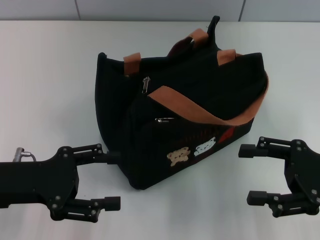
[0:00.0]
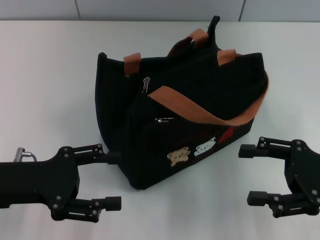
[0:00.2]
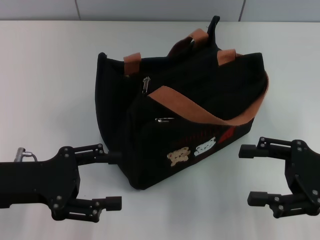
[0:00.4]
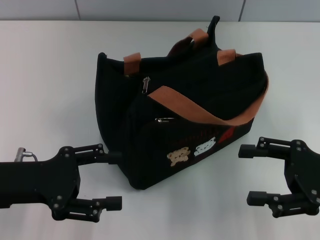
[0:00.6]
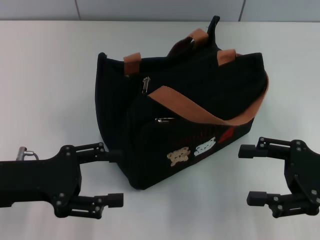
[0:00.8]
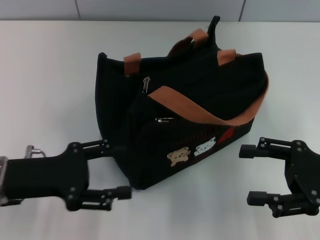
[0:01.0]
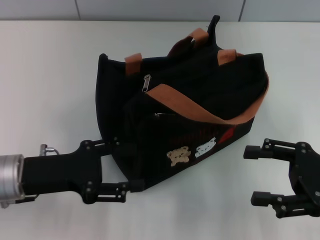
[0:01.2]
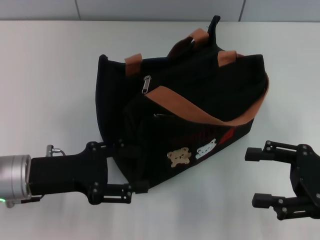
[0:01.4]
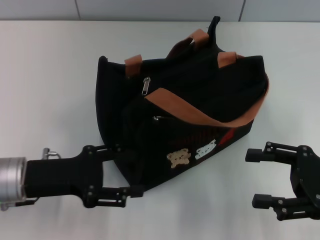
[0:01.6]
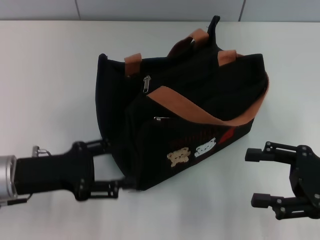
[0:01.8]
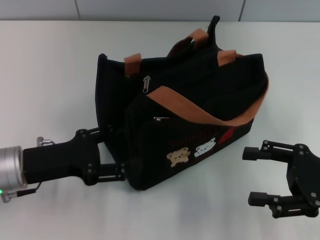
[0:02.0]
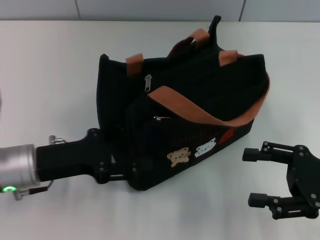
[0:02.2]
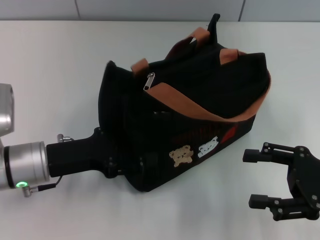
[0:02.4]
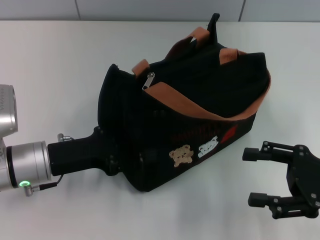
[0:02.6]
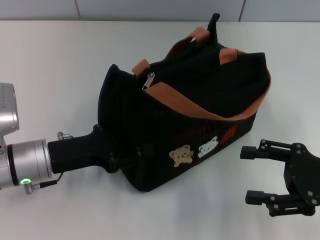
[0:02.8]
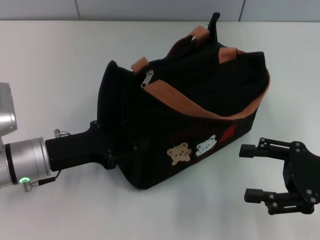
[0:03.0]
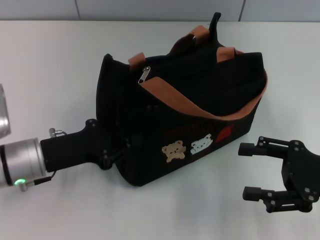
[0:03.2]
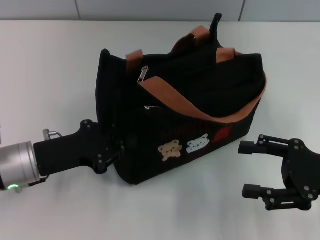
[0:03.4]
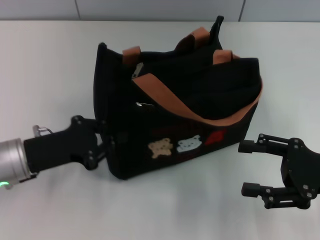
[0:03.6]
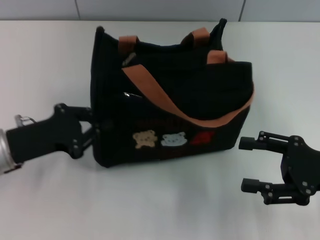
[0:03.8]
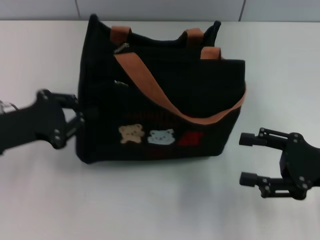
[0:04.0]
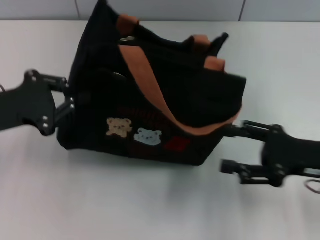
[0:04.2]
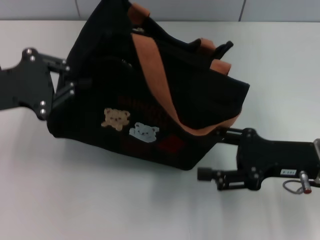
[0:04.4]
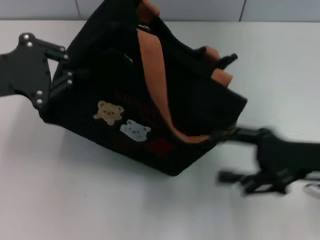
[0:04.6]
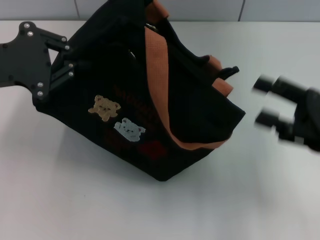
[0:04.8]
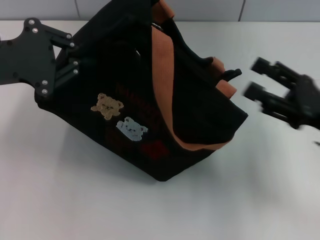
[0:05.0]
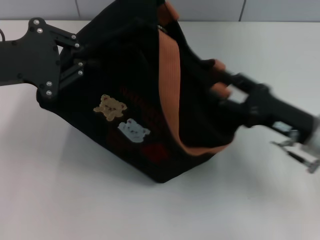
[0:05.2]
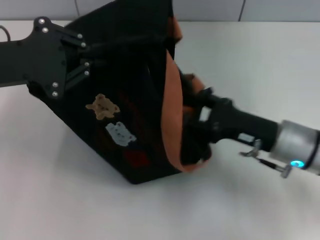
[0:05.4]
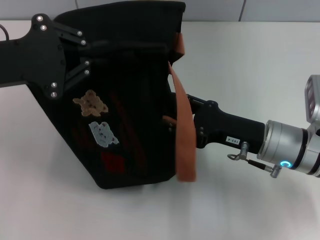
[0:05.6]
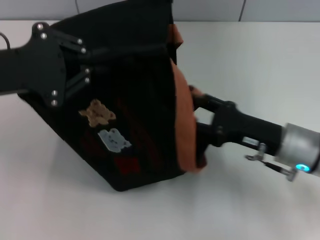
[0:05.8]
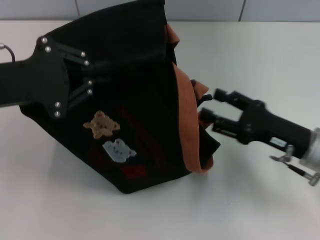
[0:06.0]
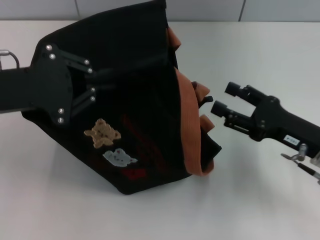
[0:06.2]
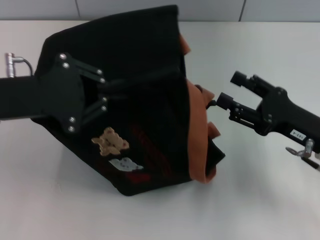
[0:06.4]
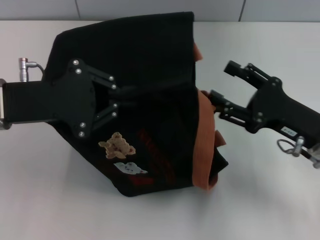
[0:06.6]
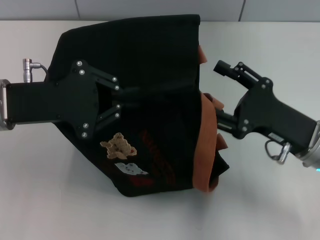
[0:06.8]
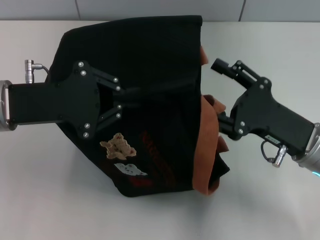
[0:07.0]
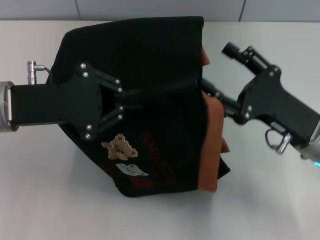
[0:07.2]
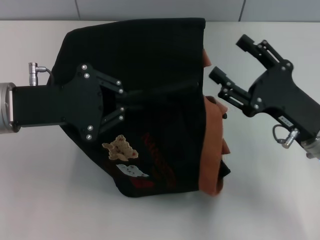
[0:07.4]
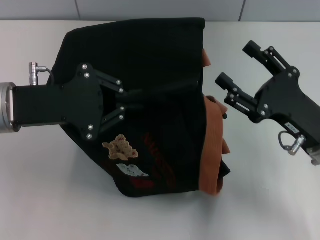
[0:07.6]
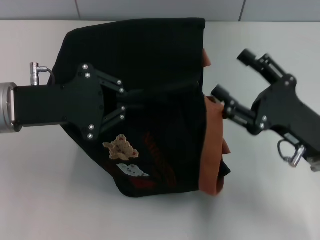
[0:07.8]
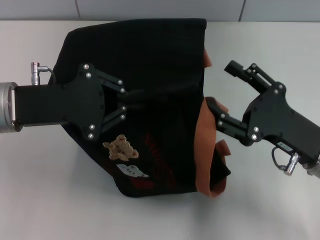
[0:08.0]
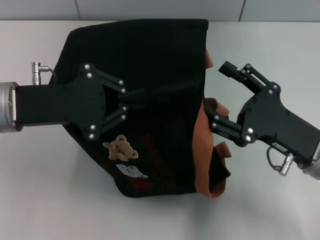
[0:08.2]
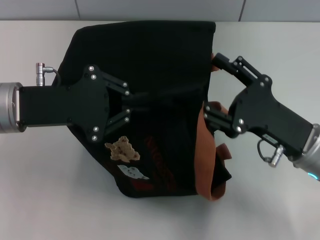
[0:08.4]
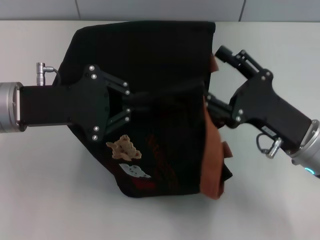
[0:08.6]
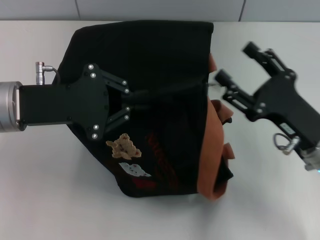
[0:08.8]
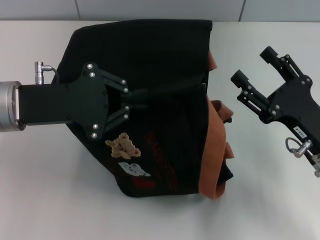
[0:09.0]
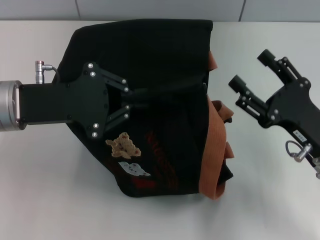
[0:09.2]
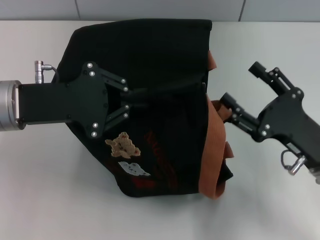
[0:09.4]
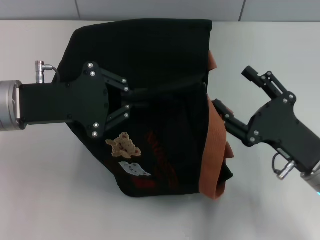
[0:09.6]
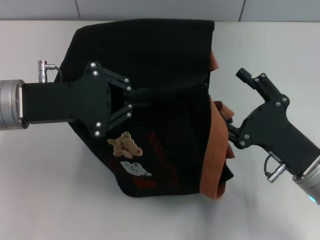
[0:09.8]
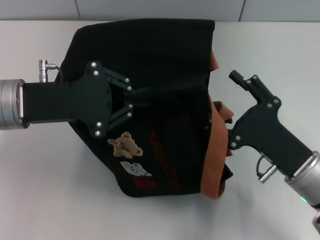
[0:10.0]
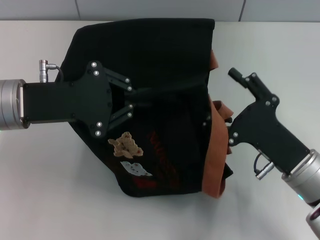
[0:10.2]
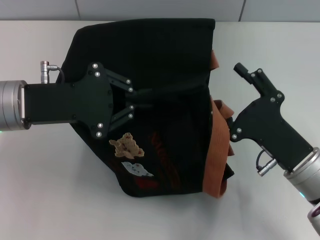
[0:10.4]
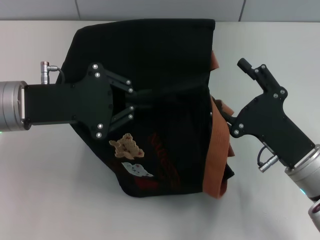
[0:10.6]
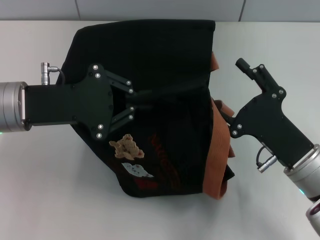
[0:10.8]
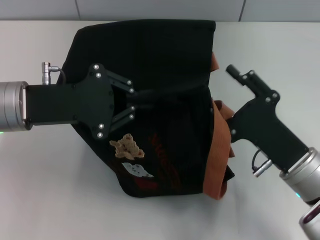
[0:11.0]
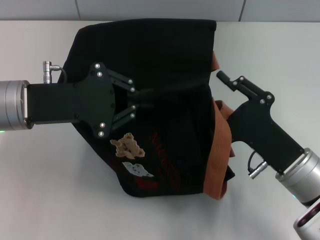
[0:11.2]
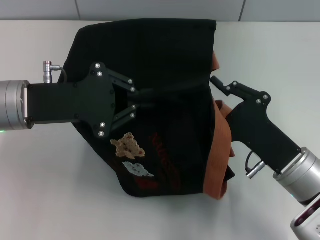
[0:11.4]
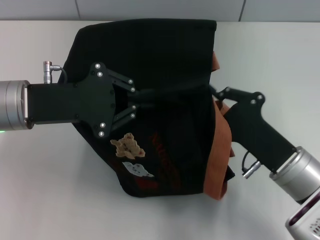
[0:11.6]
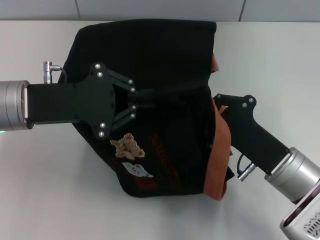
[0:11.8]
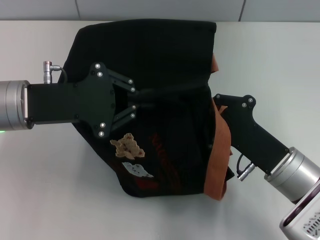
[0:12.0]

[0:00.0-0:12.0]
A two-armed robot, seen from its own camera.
0:00.0 to 0:01.6: The grippers move only a little.
0:01.6 to 0:03.0: The left gripper closes up.
0:03.0 to 0:04.4: The right gripper shifts some 5 cm to the left; the left gripper heads upward and to the left, covering approximately 15 cm, and closes up.
0:04.4 to 0:06.0: The right gripper goes left and right, some 10 cm each way, reversing 2 times.
0:07.6 to 0:09.0: The grippers move only a little.
0:10.4 to 0:12.0: The right gripper closes its fingers.

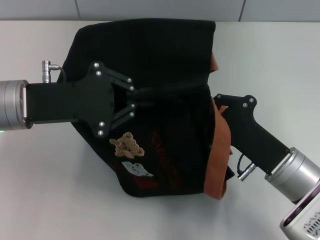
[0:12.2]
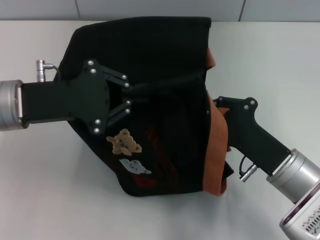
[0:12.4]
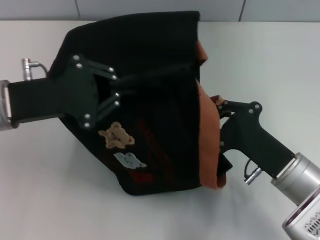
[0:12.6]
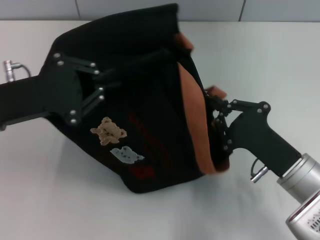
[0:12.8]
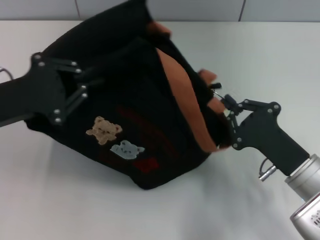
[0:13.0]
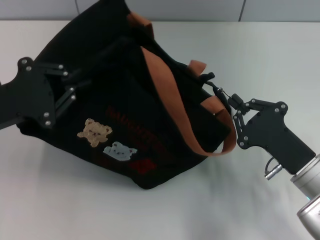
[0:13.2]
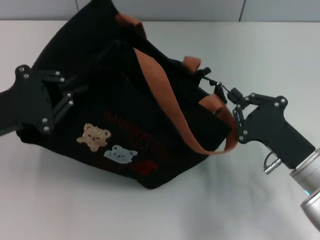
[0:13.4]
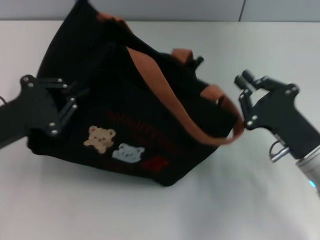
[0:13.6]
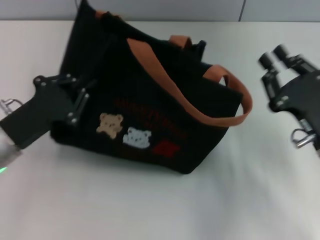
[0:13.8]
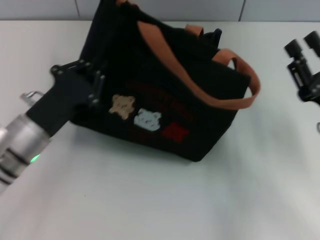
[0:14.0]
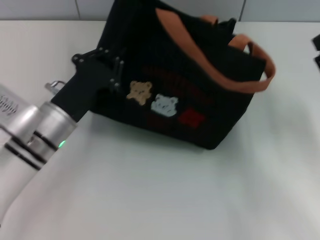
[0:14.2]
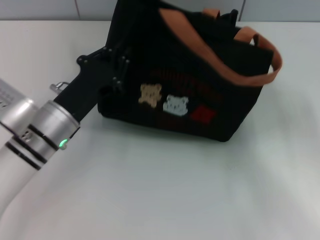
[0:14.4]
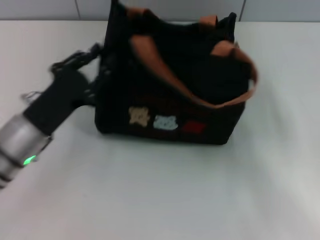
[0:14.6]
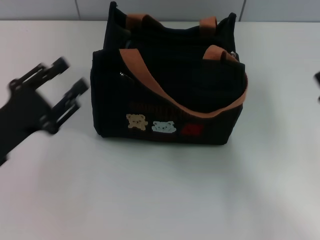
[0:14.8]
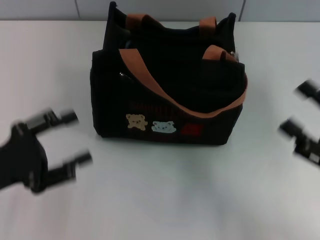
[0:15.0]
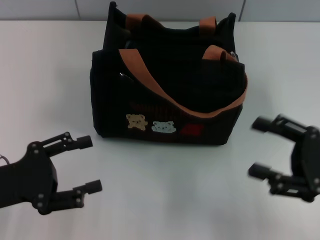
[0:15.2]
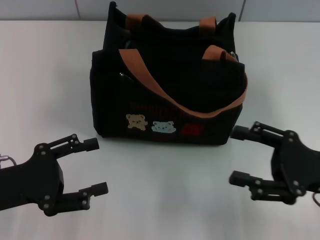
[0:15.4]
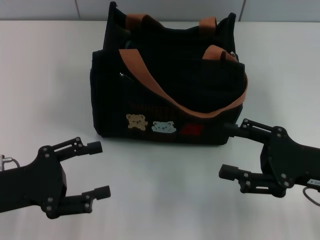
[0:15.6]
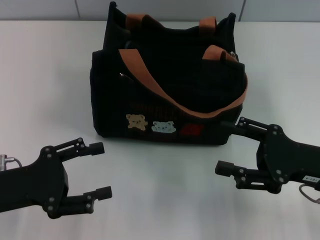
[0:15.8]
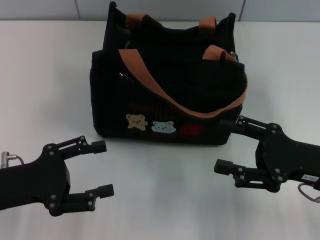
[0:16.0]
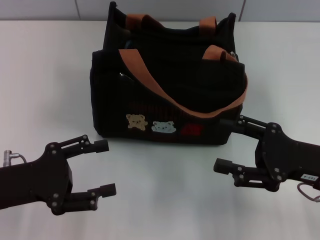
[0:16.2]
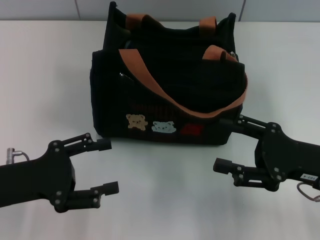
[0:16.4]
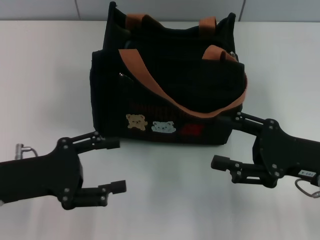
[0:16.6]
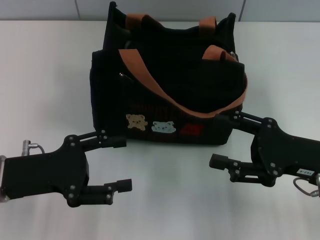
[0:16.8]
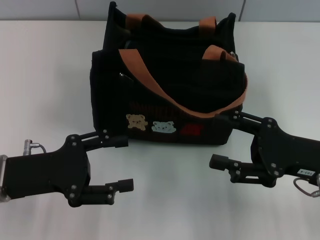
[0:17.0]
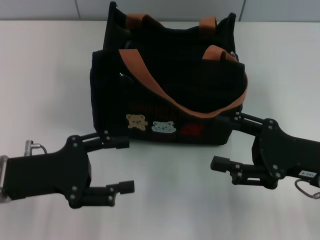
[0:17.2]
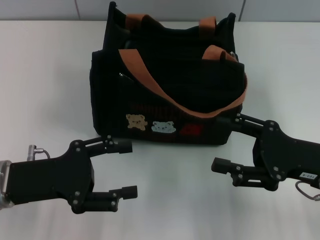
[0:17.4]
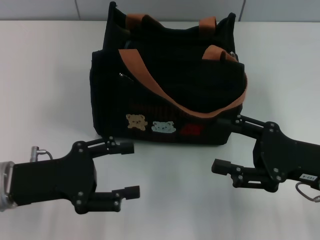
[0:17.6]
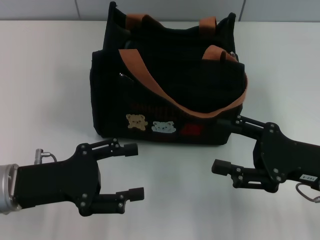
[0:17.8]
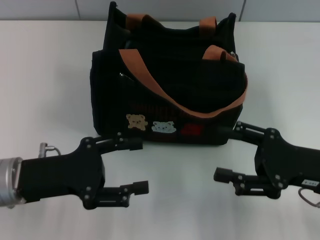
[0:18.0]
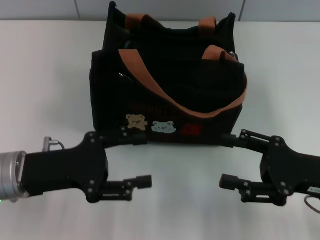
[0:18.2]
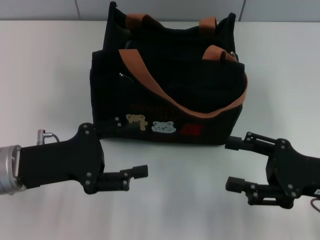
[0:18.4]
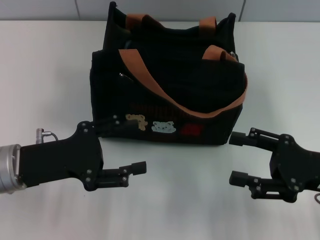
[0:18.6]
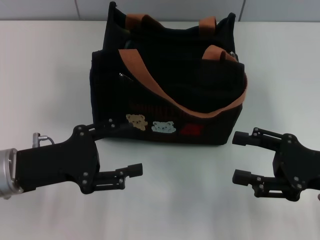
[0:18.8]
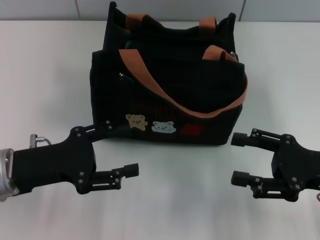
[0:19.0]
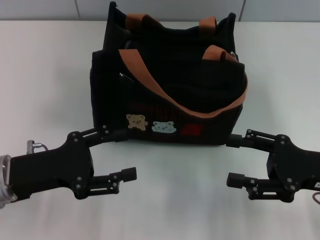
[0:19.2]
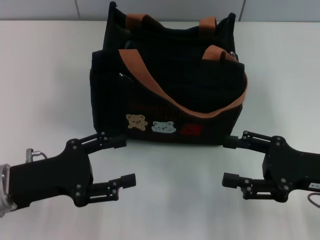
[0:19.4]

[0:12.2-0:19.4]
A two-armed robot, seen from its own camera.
Step, 0:13.6 to 0:14.6: Grab the bag with your left hand.
0:12.2 to 0:13.6: The left gripper is displaced downward and to the left by some 10 cm.
0:13.6 to 0:15.0: The left gripper reaches approximately 10 cm to the right, then returns, and opens its fingers. The right gripper moves to the right, roughly 10 cm, and opens.
0:15.0 to 0:16.6: The left gripper opens its fingers; the right gripper ends up about 5 cm from where it was.
0:16.6 to 0:19.4: The grippers move only a little.

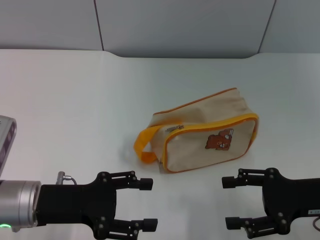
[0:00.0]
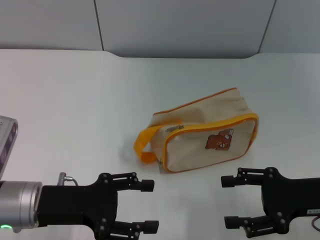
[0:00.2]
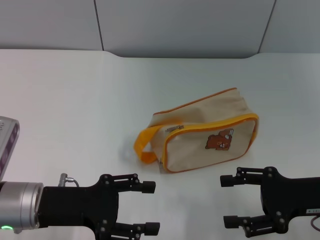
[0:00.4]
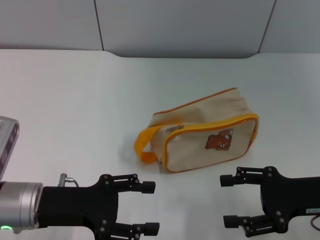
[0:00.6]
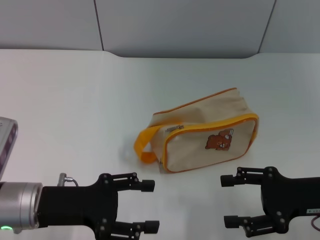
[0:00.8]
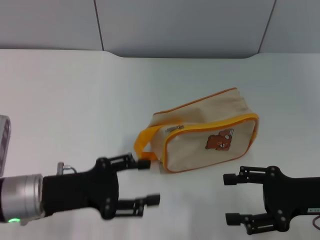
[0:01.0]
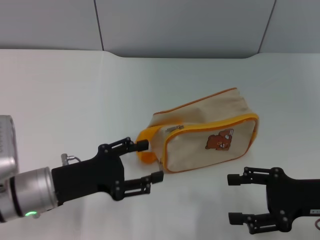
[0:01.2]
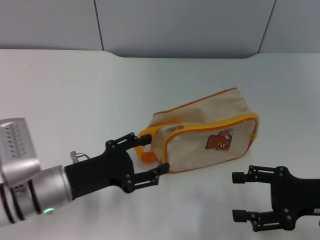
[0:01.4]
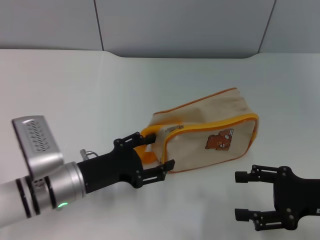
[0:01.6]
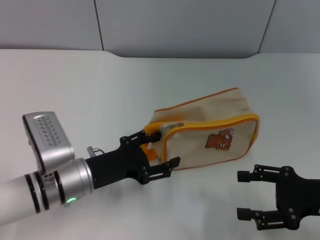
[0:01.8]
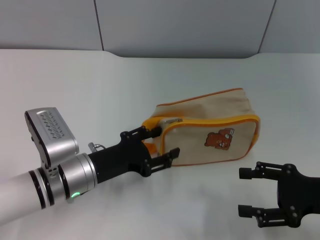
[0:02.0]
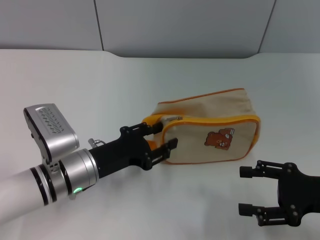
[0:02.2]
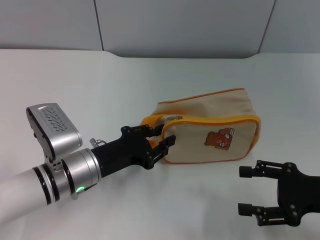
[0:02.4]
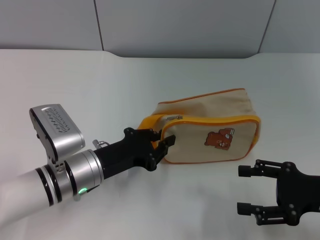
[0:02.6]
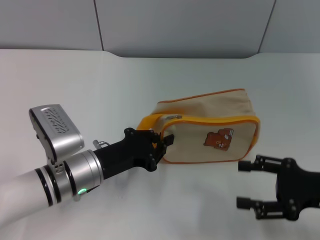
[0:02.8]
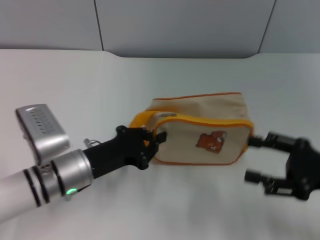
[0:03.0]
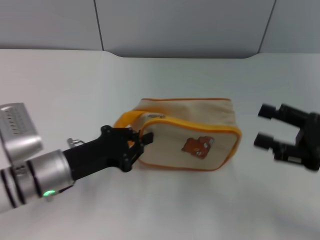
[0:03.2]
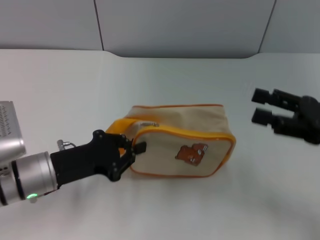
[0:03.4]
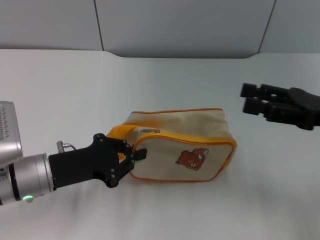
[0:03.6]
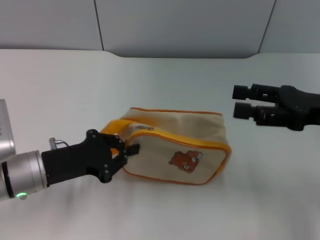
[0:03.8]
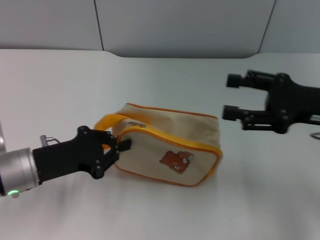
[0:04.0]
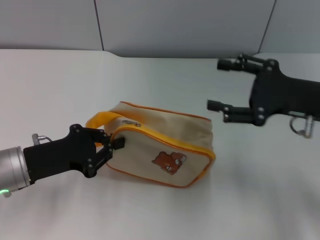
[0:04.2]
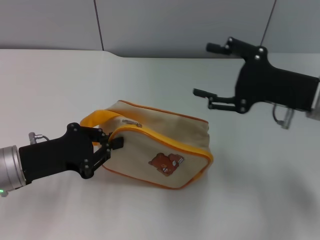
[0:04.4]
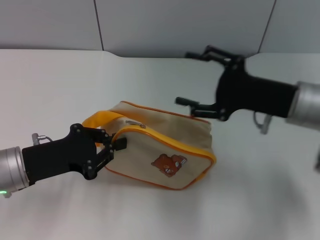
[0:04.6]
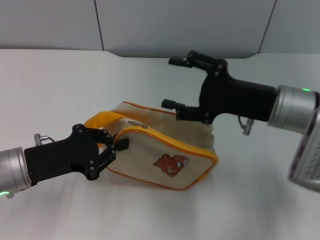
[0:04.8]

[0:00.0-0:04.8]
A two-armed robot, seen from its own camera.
Step, 0:00.0 to 0:04.2: Pick up the bag with left gripper.
0:00.0 to 0:01.6: The left gripper moves about 5 cm.
0:01.6 to 0:03.2: The left gripper closes.
0:03.2 to 0:04.8: The left gripper changes place by some 5 cm; the right gripper travels to the left and forward by approximately 15 cm.
